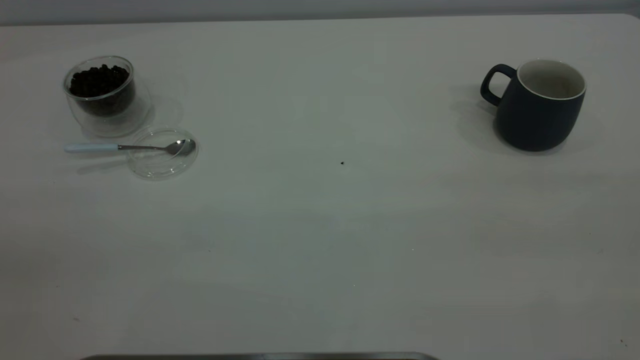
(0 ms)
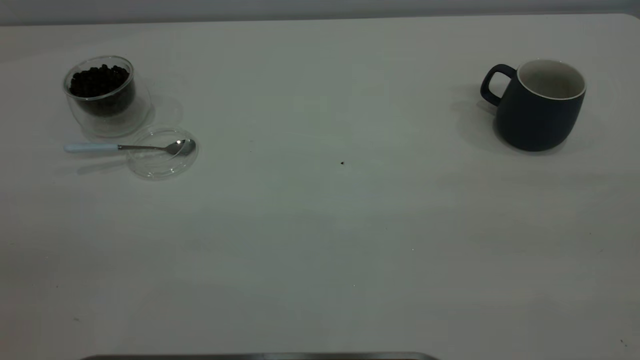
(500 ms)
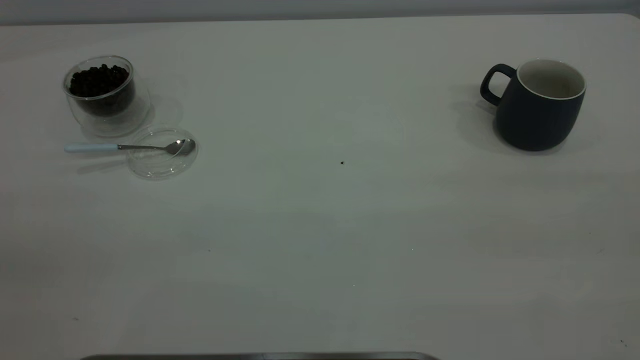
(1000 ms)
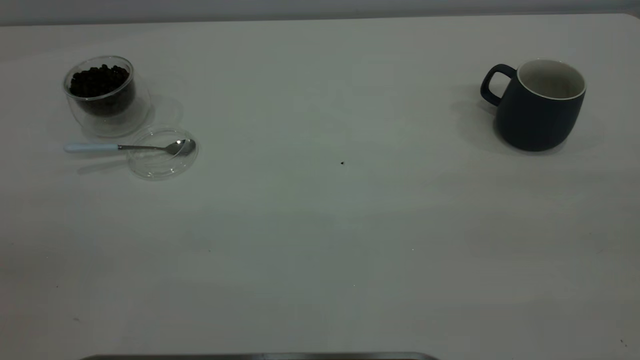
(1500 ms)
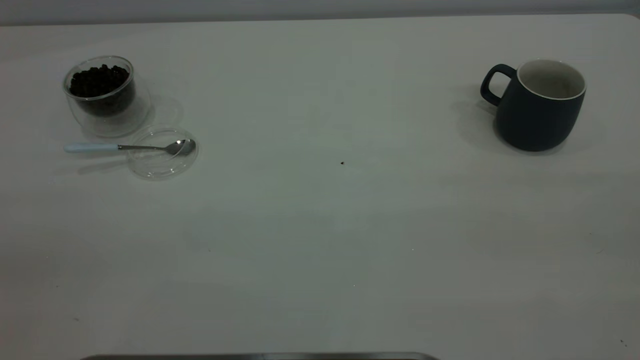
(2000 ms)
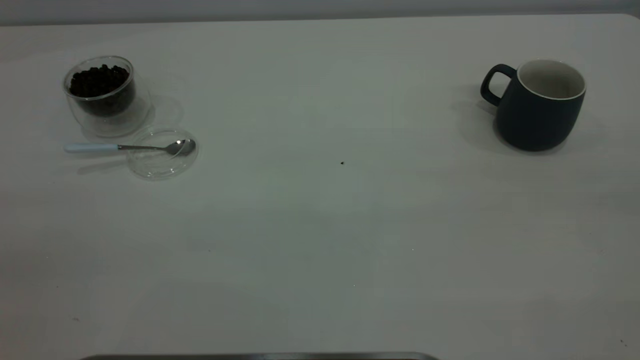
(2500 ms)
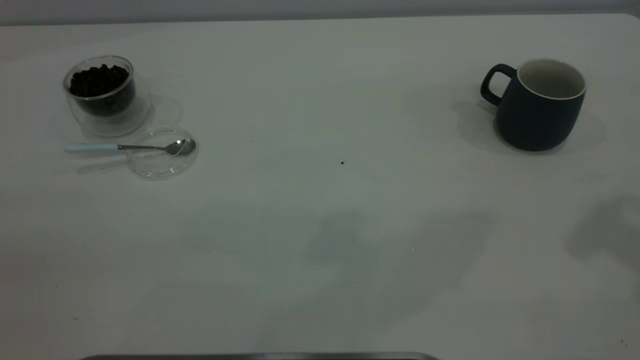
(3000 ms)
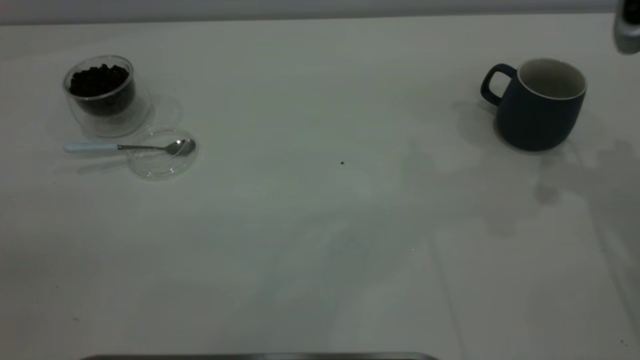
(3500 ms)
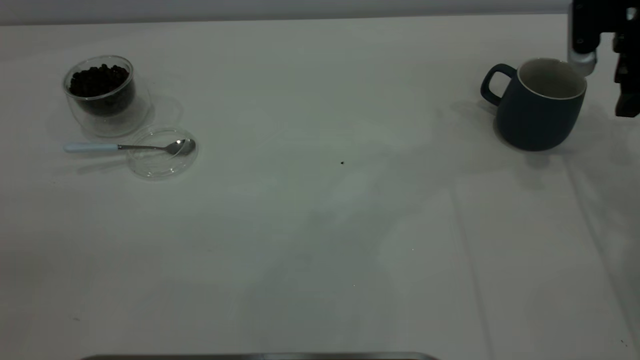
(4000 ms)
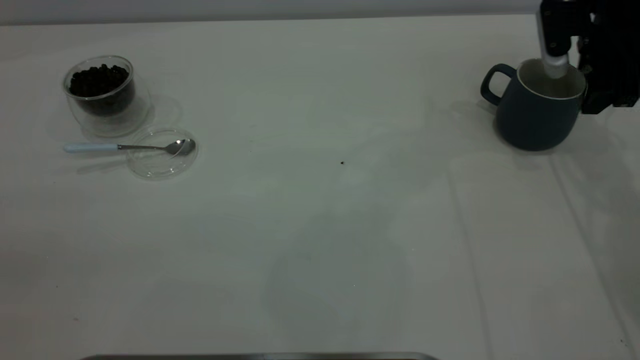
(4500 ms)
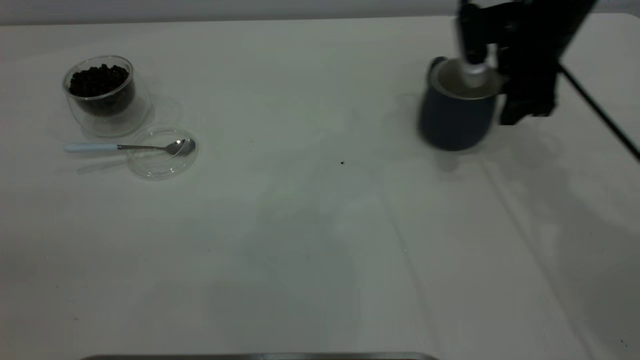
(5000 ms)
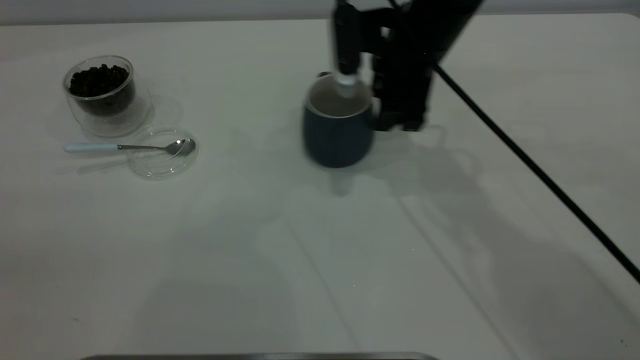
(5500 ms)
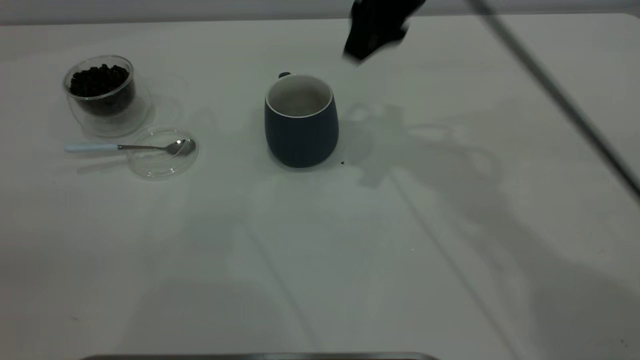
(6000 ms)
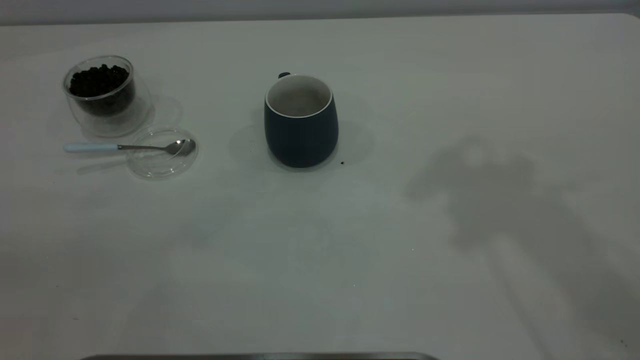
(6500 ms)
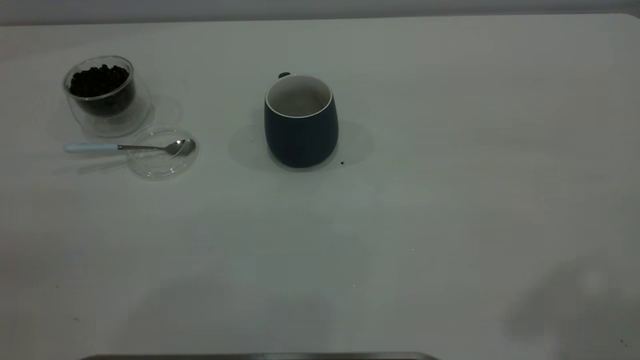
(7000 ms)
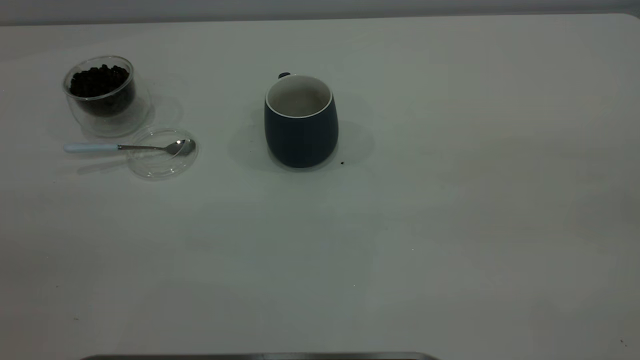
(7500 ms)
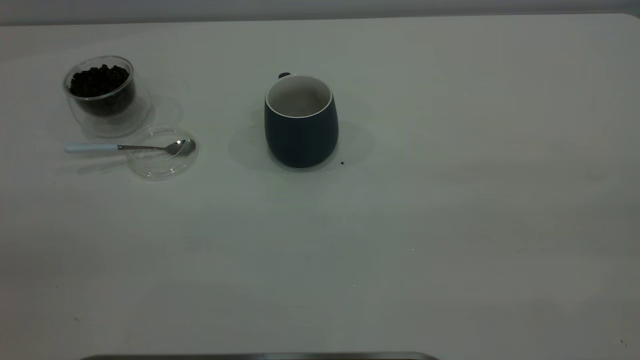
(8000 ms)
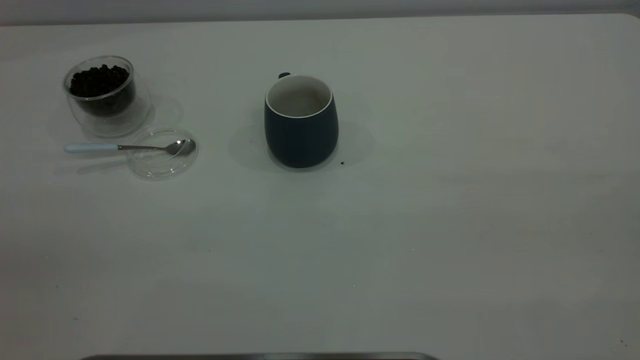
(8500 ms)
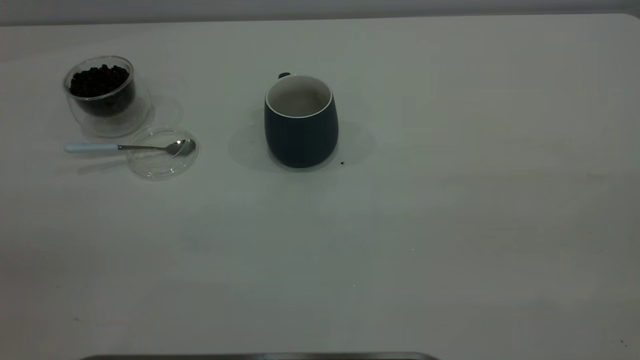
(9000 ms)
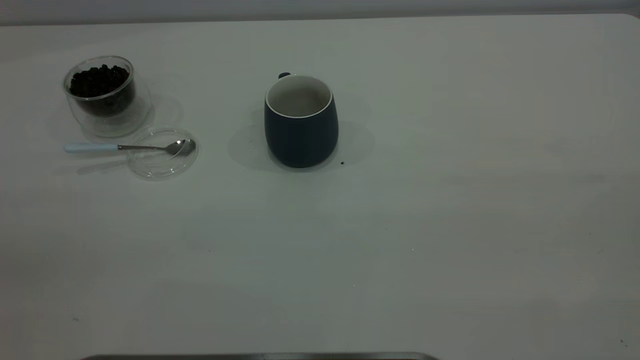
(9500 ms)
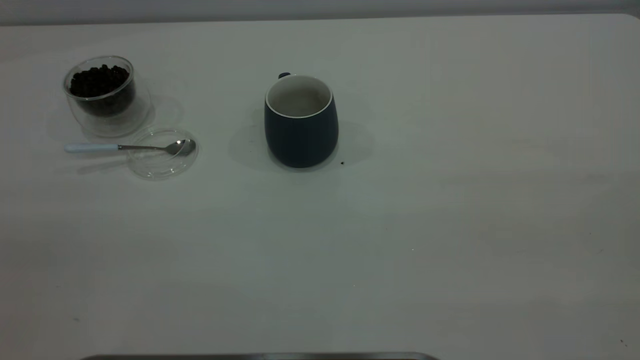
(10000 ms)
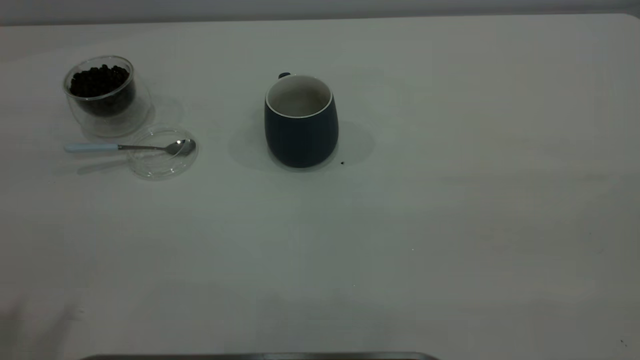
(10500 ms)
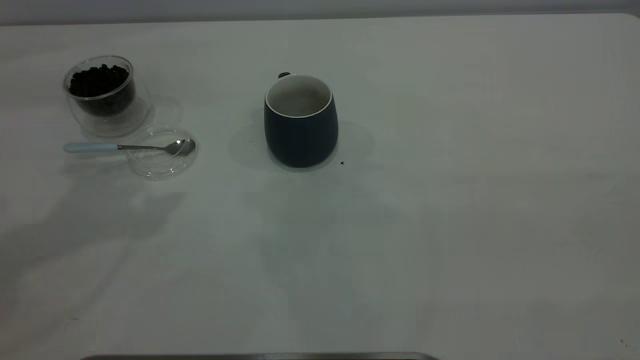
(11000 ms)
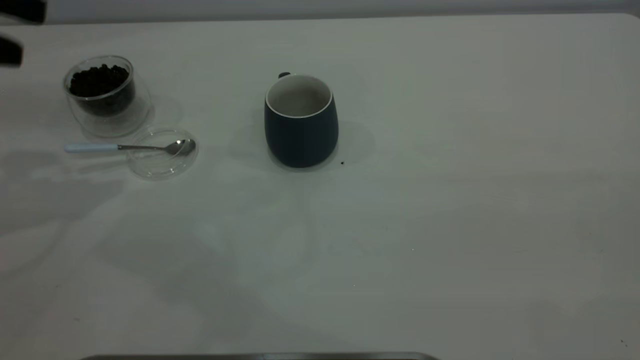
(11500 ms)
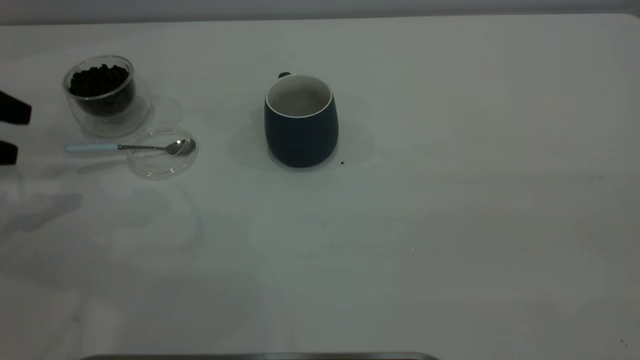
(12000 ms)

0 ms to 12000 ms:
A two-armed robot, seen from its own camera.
Task of the whole recording: the right gripper place the grey cup in the center of the table, the left gripper take the blue spoon from the cup lid and scoop out the coffee beans from the coffee cup and put them into the grey cup, the left gripper put the spoon back into the cup lid.
Step, 0 ms to 6000 ms: Move the cup to the center of view.
0 ms to 2000 ms: Neither gripper changes place.
2000 ms to 4000 ms: The right gripper is displaced forward and downward by about 50 cm.
4000 ms to 6000 ms: The right gripper travels to the left and upward by roughly 25 cm.
6000 ms to 8000 ms: The right gripper is displaced backward and to the right by some 40 cm.
10000 ms to 12000 ms: The left gripper goes some 40 cm forward and downward.

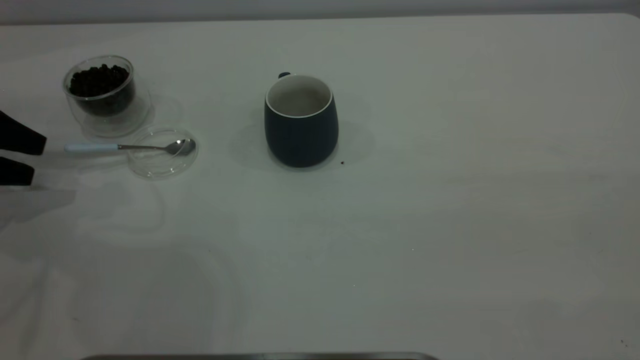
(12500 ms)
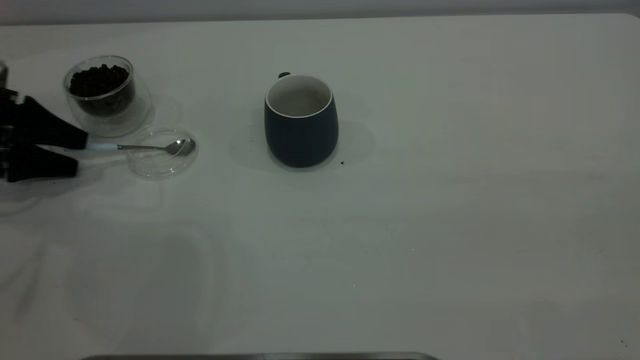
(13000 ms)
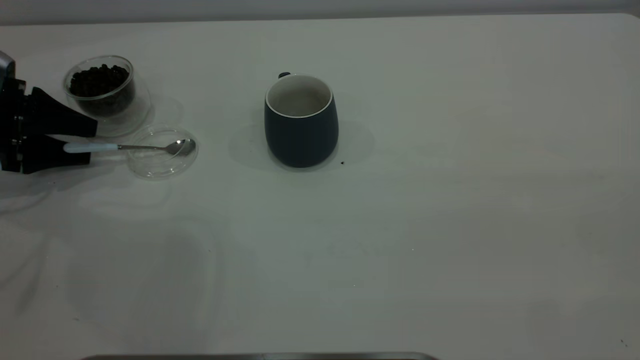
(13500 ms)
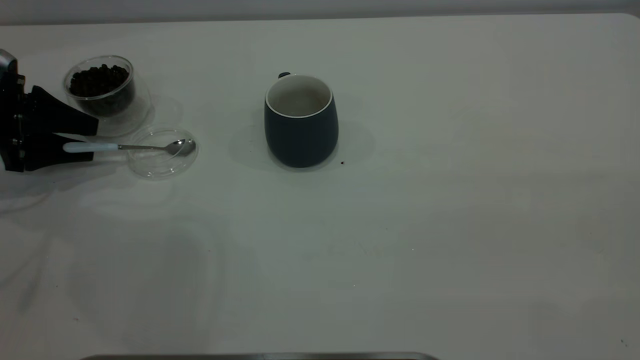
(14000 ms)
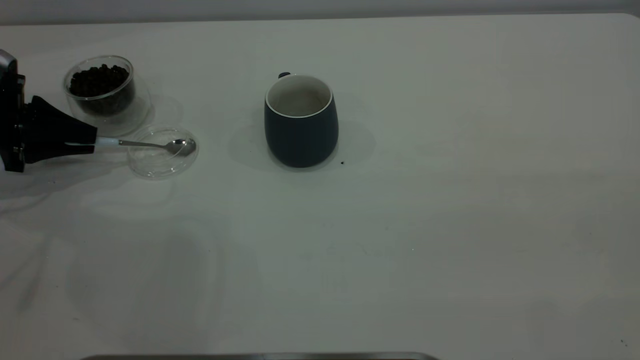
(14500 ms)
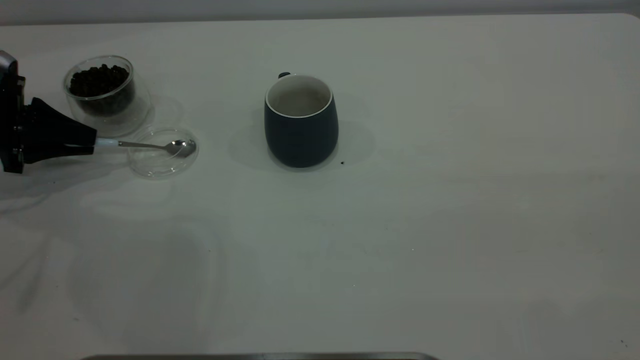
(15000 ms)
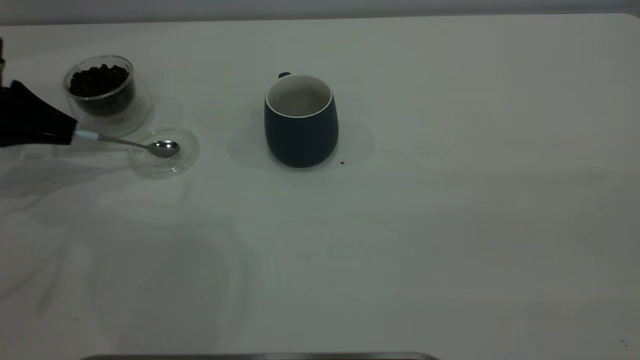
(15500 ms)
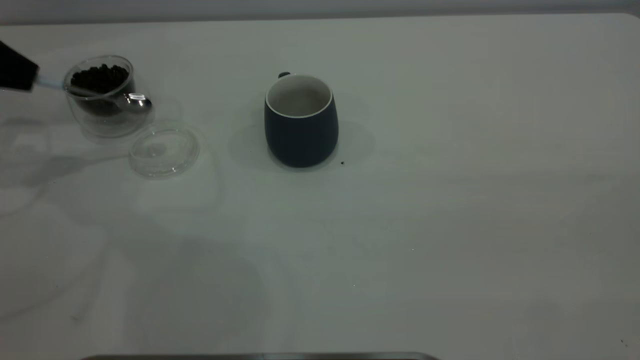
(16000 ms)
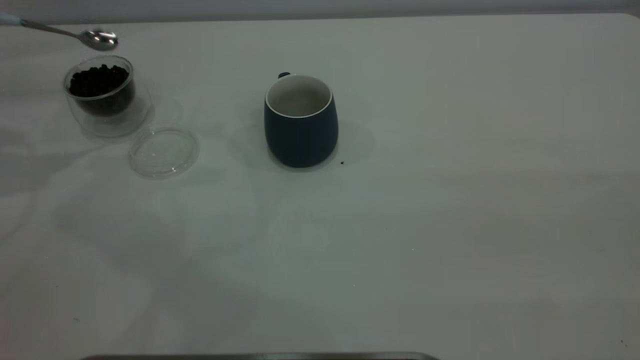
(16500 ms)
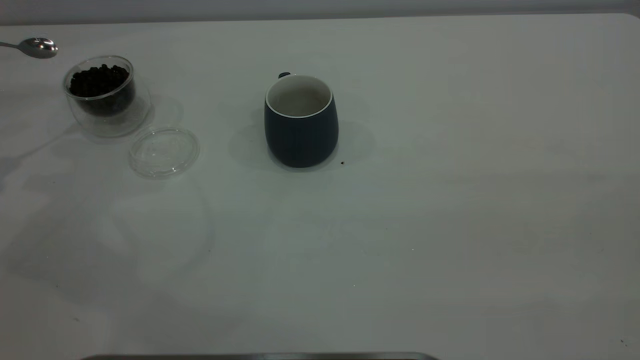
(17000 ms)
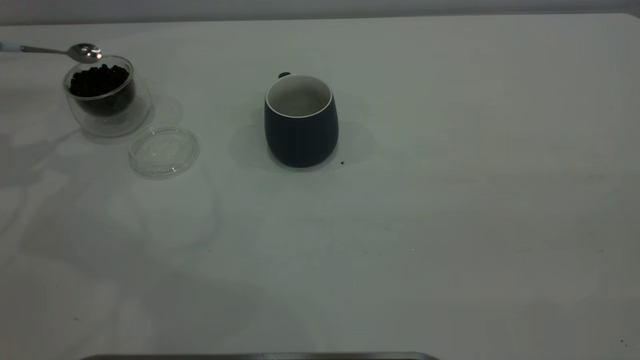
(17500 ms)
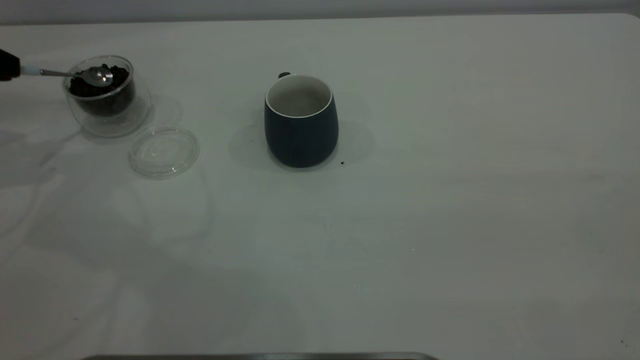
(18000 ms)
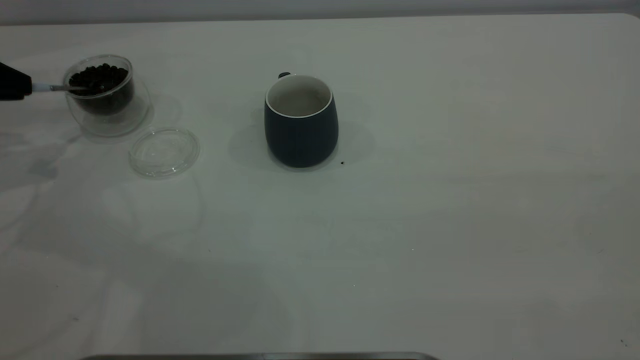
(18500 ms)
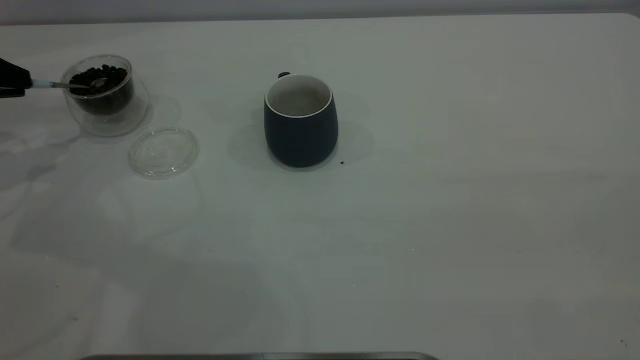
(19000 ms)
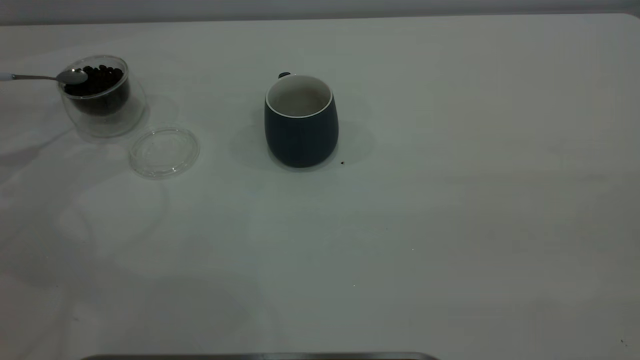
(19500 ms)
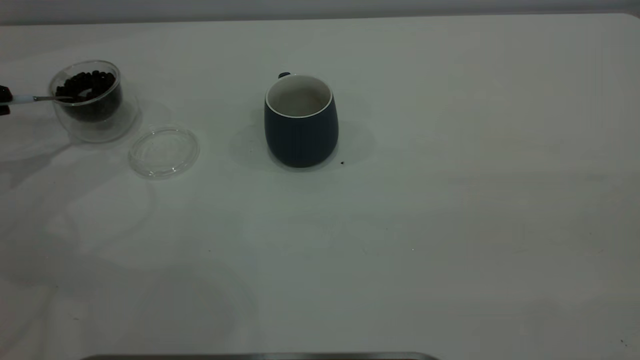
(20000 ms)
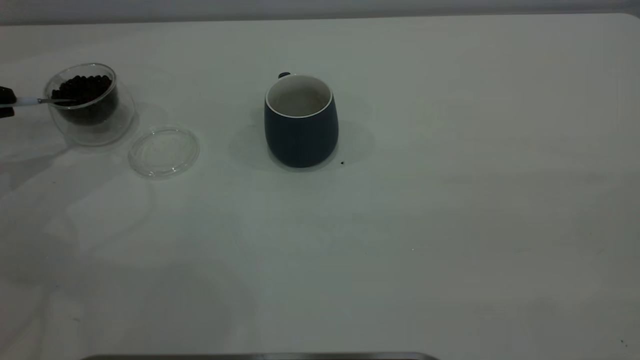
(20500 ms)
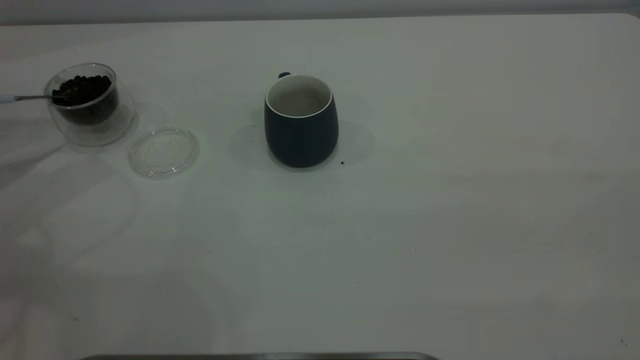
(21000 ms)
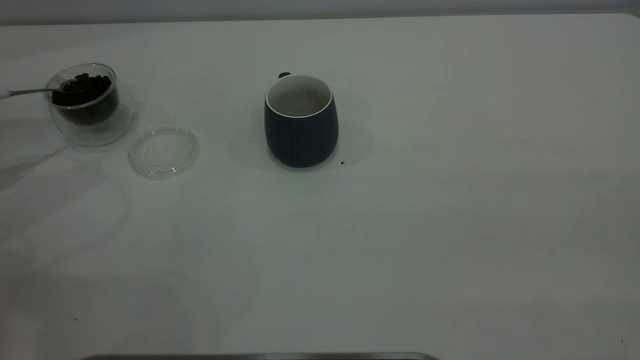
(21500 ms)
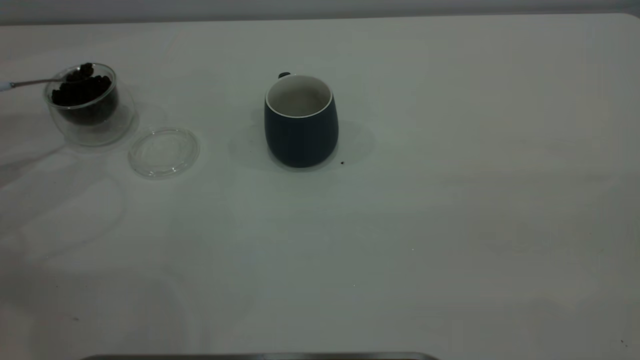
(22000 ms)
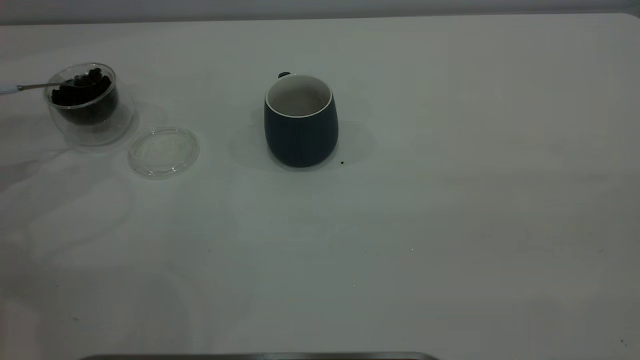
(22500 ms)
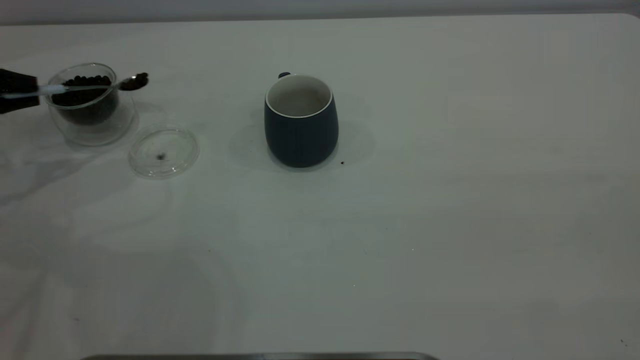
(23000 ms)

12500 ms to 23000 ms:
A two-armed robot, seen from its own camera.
Task of the whole recording: the right gripper place the grey cup in the center of the table, the left gripper take the blue spoon from the cup lid and scoop out the coffee beans from the coffee cup and put them into the grey cup, the left gripper put the spoon back into the cup lid.
Step, 12500 ms to 16000 ms: Pick up the spoon.
12500 ms to 14500 ms: The left gripper moves about 5 cm, and closes its fingers.
14500 ms to 16500 ms: The left gripper travels upward by some 20 cm.
16500 ms to 19000 ms: The left gripper shifts roughly 10 cm downward.
19000 ms to 21000 ms: The left gripper shifts by approximately 5 cm.
21000 ms to 23000 ms: The left gripper moves approximately 5 cm.
